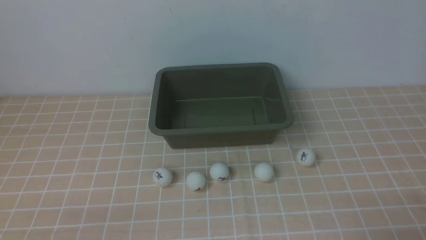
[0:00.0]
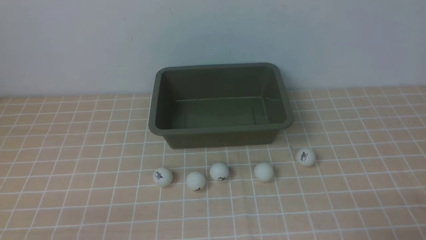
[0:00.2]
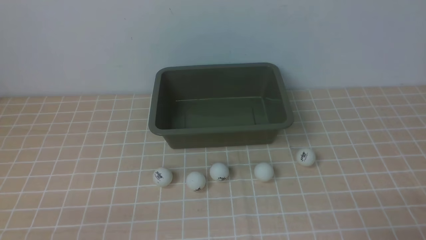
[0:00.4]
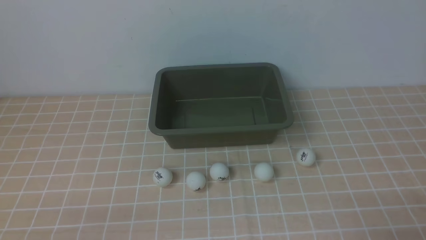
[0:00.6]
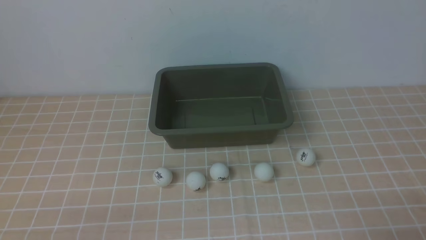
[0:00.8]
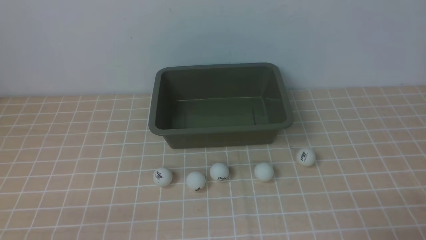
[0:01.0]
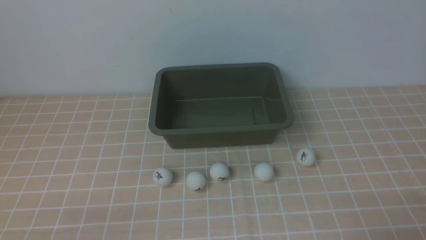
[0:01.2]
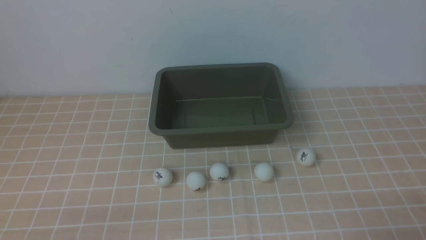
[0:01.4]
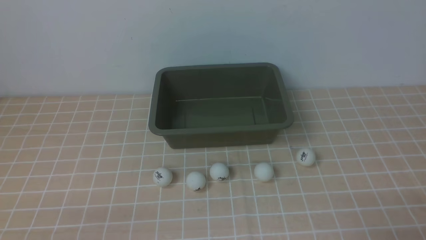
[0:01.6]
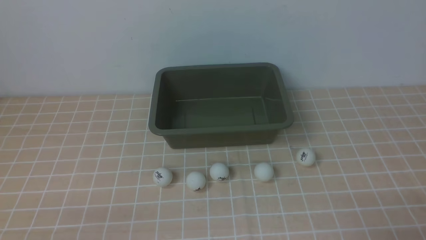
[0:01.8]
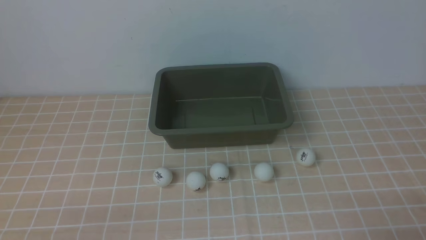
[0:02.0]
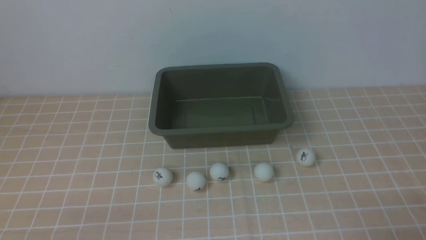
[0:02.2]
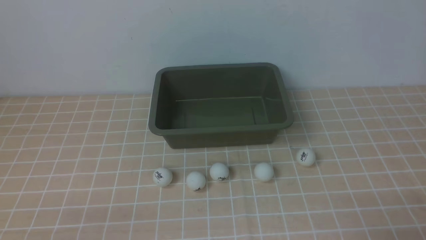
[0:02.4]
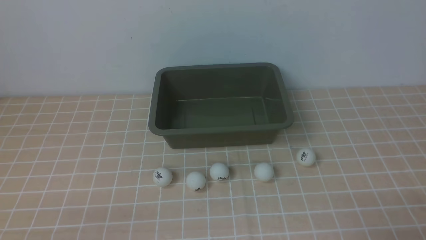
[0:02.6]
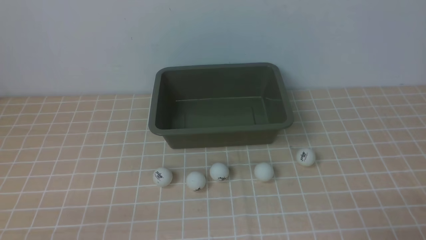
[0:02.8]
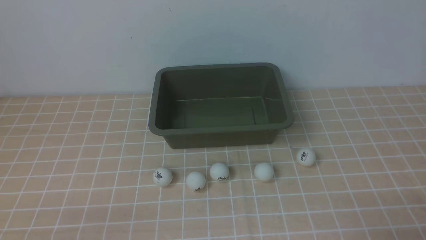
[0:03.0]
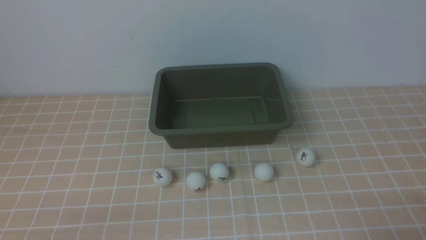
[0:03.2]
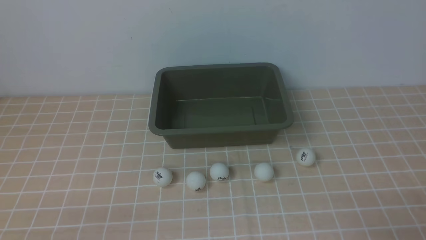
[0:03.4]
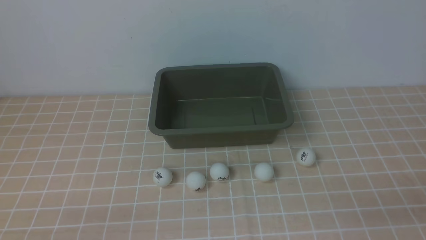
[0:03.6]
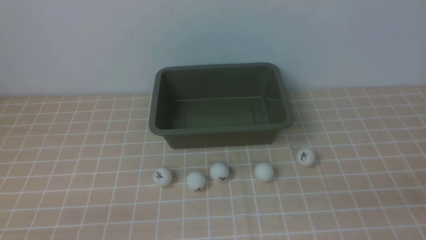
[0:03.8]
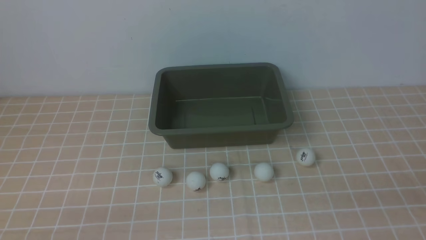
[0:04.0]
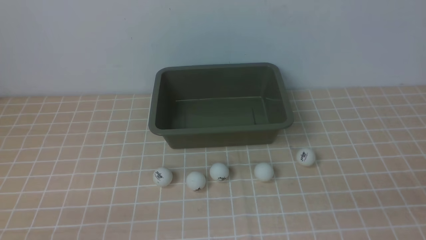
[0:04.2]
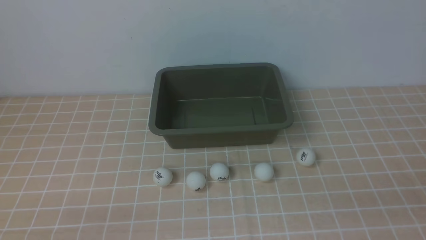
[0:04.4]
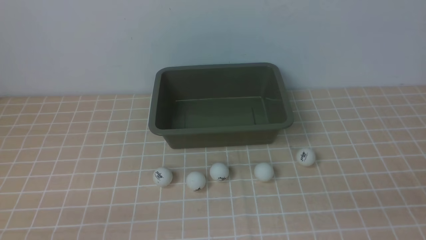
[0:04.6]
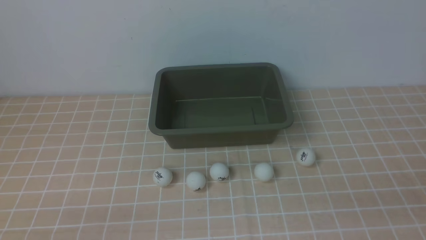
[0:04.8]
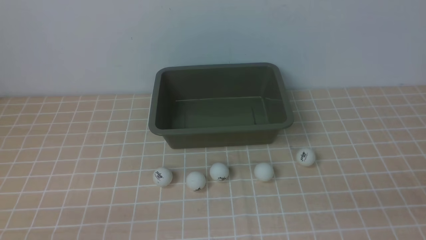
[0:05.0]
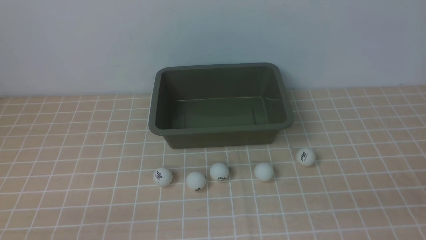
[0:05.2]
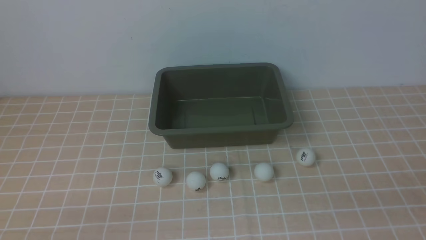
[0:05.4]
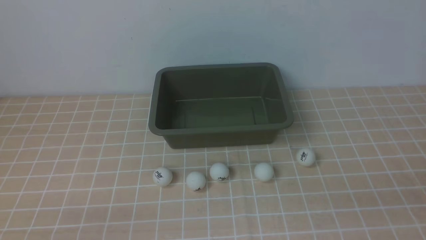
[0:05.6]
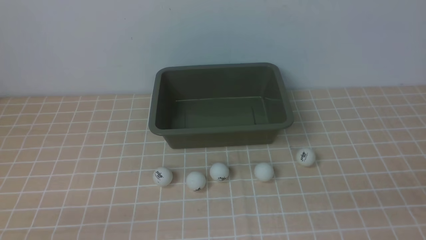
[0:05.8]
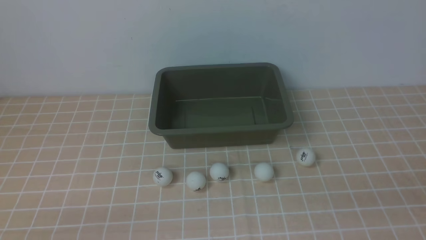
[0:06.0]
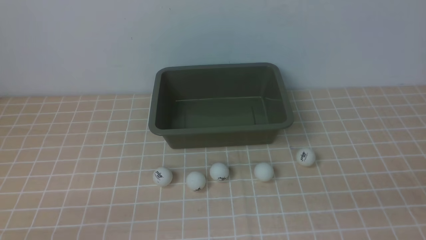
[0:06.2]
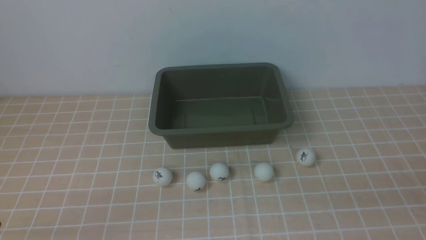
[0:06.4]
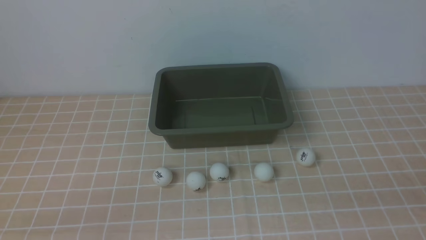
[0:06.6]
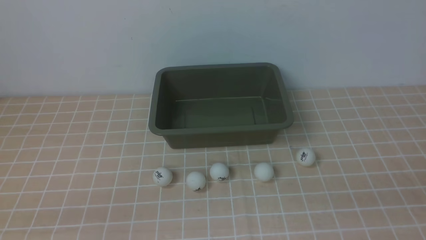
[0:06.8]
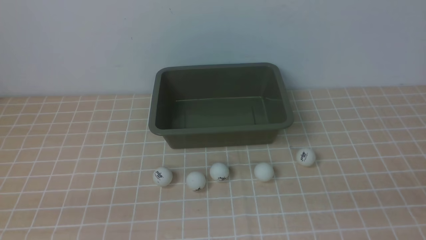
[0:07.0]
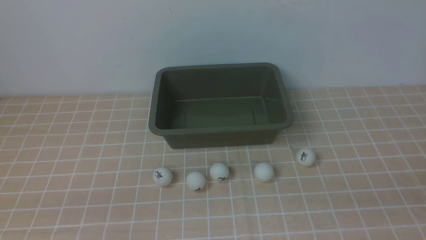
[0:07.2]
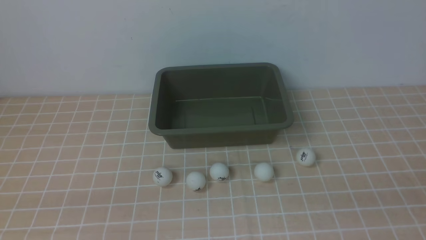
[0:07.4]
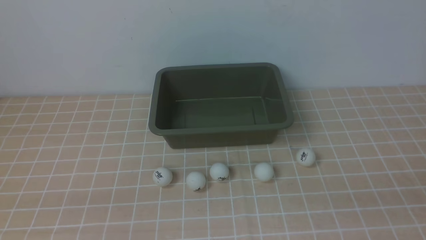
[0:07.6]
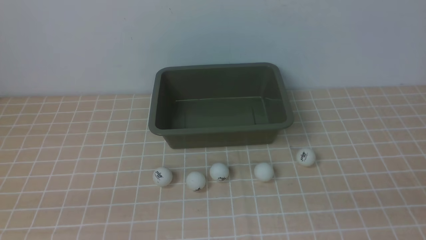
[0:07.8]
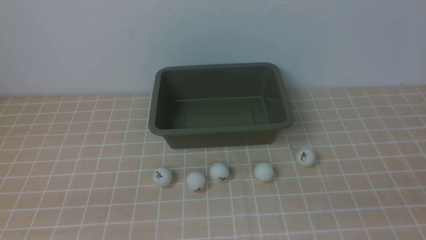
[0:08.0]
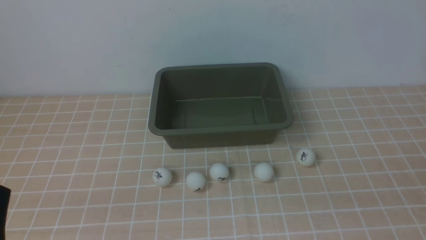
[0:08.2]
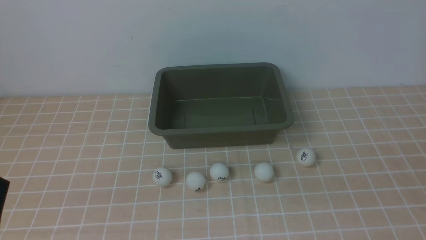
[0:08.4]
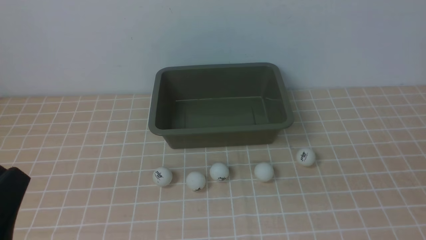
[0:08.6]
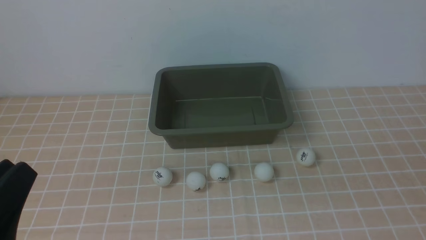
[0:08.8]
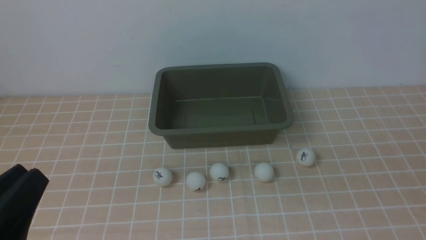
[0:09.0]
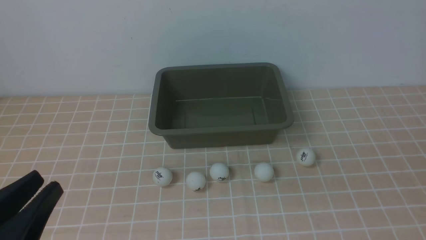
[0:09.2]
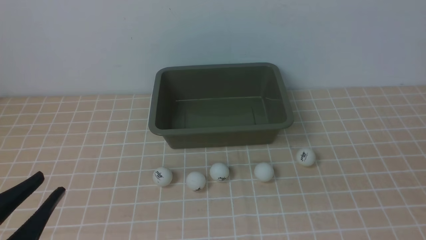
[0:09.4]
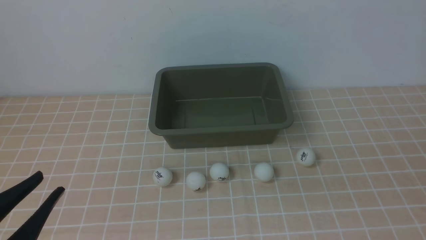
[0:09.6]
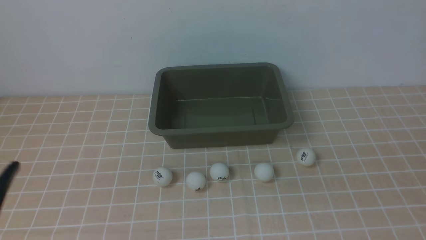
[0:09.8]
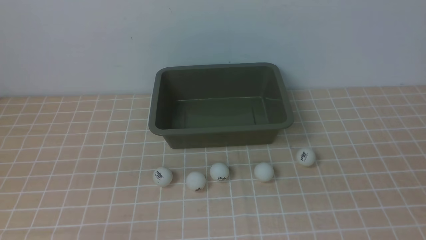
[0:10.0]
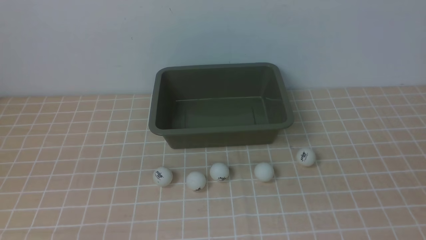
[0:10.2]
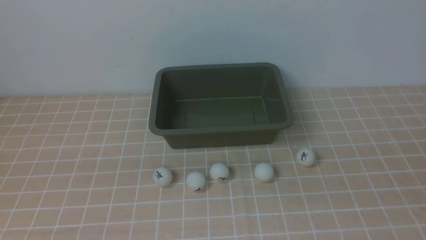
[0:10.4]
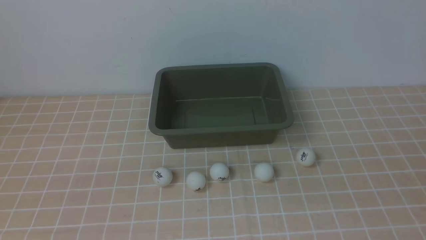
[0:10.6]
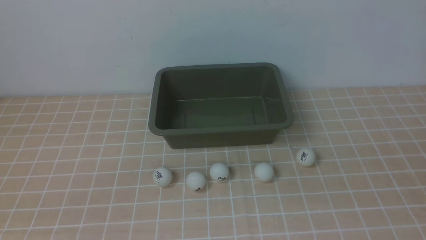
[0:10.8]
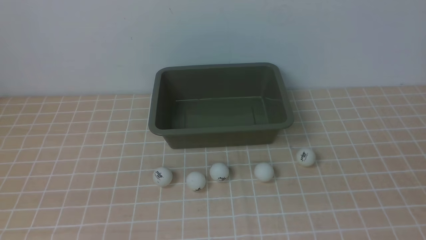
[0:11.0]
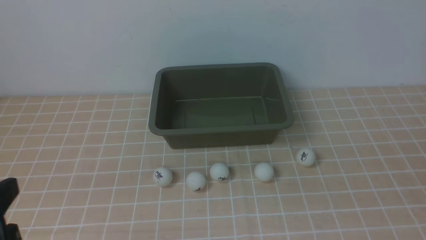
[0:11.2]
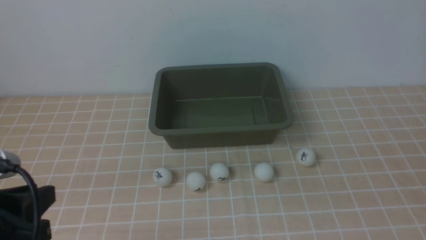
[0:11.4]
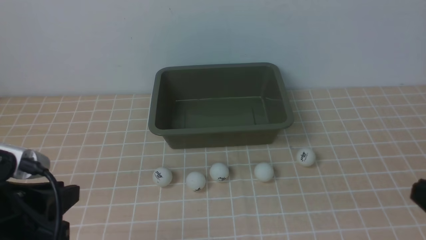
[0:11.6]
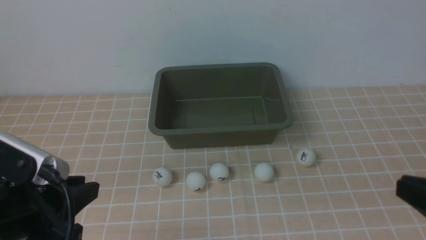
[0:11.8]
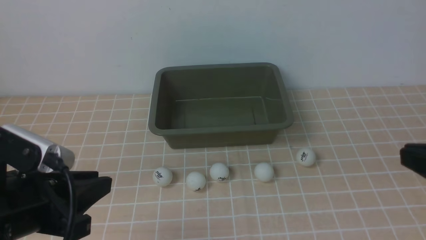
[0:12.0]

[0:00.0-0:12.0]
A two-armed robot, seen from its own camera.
0.0 to 3.0 s: Neither gripper changes place.
7.6 to 9.0 s: The left gripper shifts approximately 5 cm upward, and opens.
9.0 to 10.4 s: The left gripper goes approximately 10 cm to the left.
10.4 to 12.0 s: The left gripper shifts roughly 10 cm forward and to the right. The right gripper moves forward, approximately 5 cm.

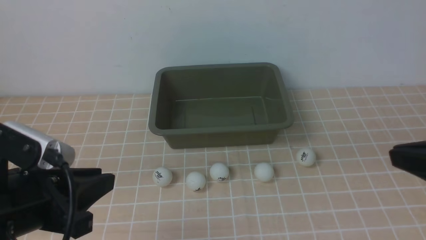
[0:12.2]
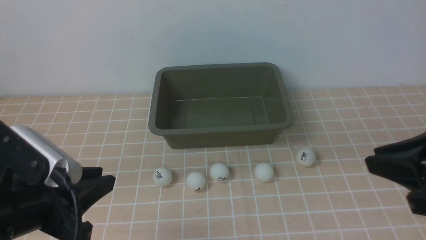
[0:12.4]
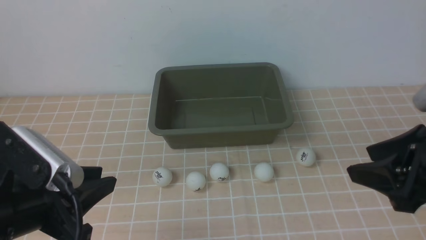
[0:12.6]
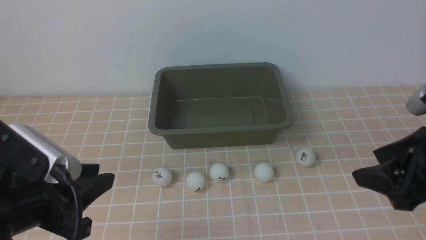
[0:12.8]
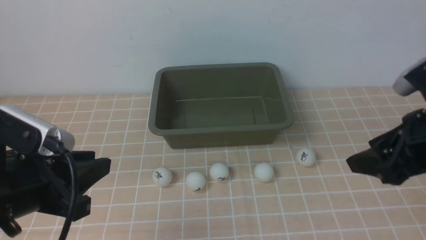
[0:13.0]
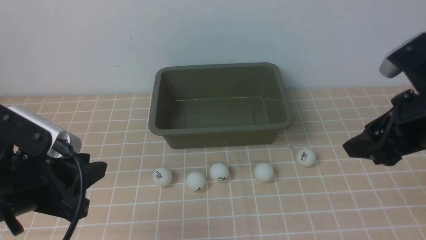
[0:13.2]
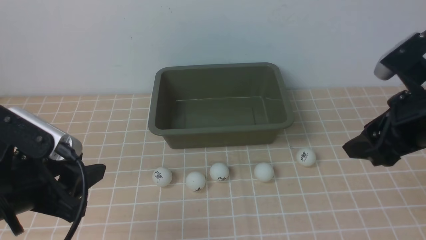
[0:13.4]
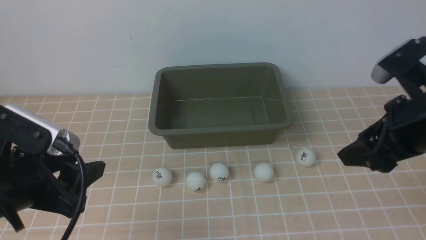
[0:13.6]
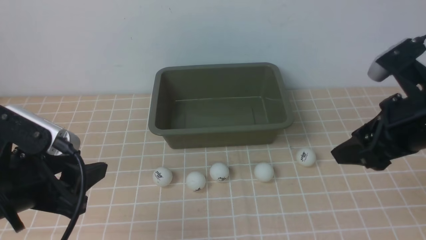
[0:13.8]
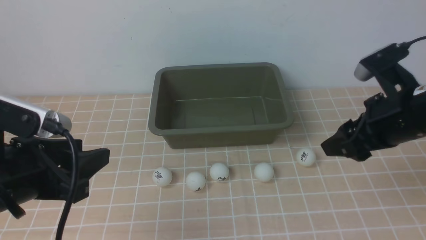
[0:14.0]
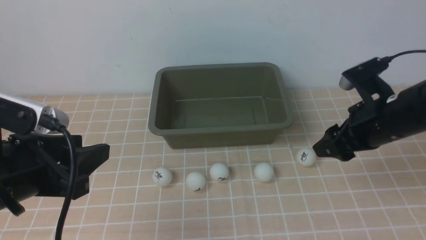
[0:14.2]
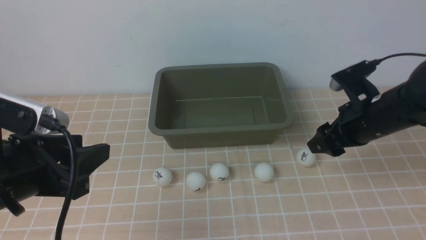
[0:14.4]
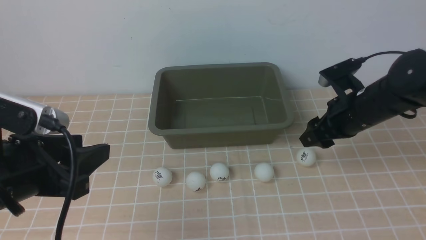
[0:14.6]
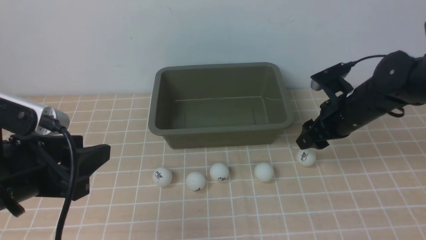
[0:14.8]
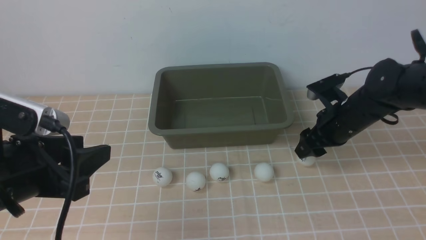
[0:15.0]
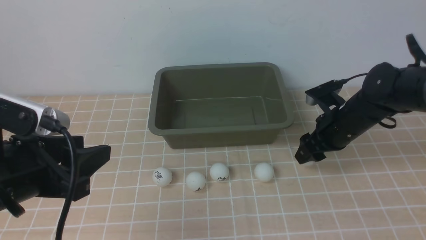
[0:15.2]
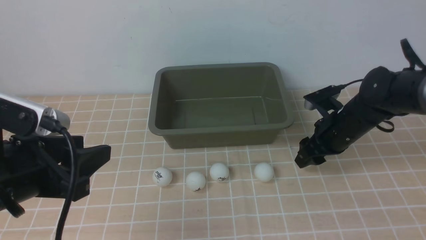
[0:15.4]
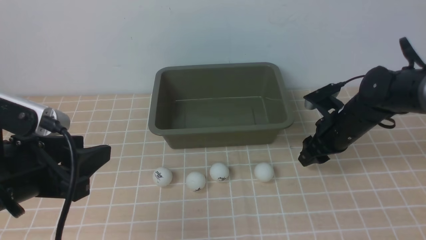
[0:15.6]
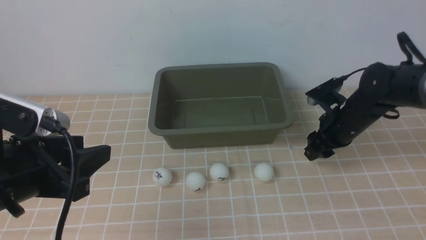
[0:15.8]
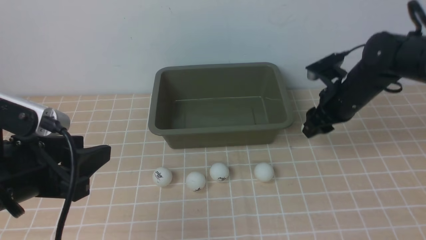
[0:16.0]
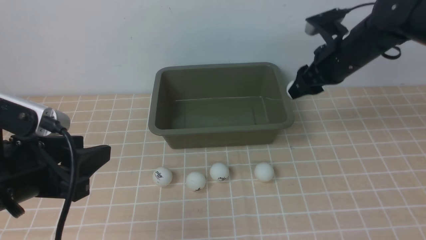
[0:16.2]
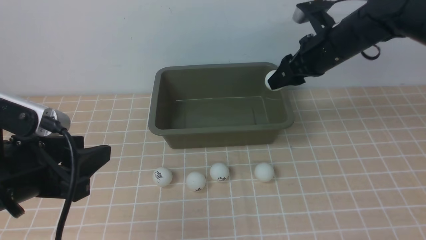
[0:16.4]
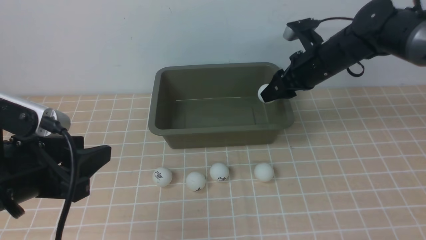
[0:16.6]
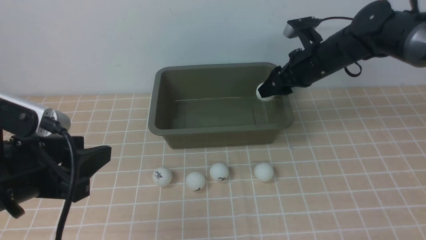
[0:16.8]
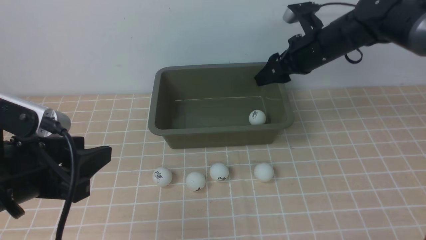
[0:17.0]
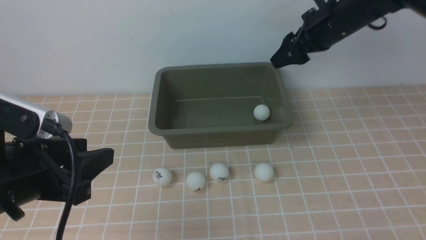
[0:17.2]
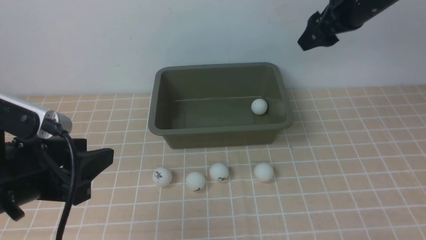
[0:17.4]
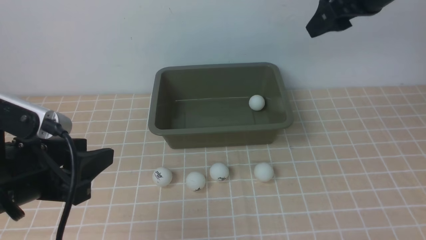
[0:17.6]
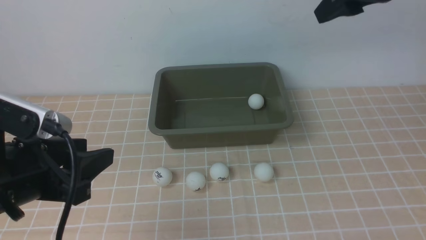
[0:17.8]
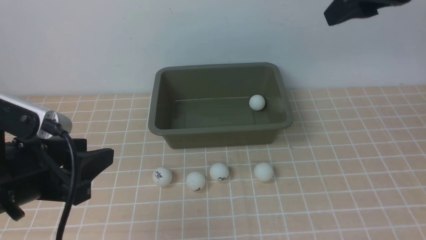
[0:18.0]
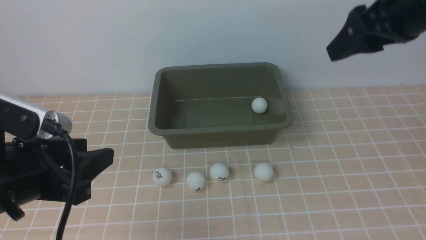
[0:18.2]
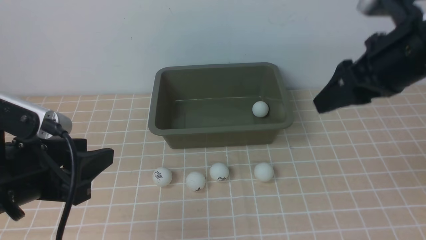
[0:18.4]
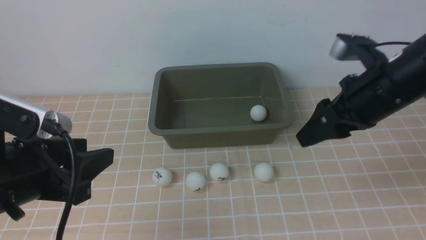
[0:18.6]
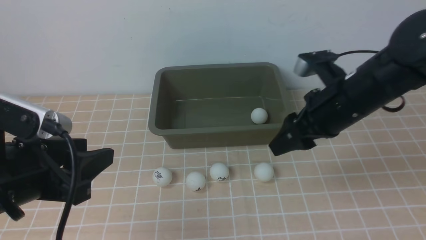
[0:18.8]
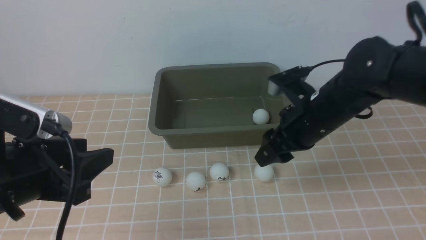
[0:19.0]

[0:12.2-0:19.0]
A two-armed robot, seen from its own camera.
Step, 12.2 to 16.2 s: use the right arm to clamp the table tennis ball closest to it.
Step, 16.4 to 17.2 s: use the right arm to put the table tennis ball into the box.
12.2 to 13.6 s: The right gripper goes roughly 10 cm forward, and opens. Meanwhile the left gripper opens up.
13.6 to 15.0 s: The right gripper shifts about 20 cm forward and downward.
15.0 to 16.2 s: The right gripper goes about 10 cm upward.
16.2 to 17.6 s: The right gripper moves upward, about 15 cm.
17.6 to 19.0 s: The right gripper is displaced downward and to the left by approximately 20 cm.
